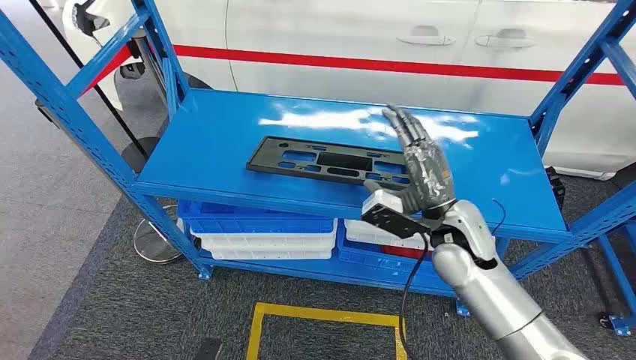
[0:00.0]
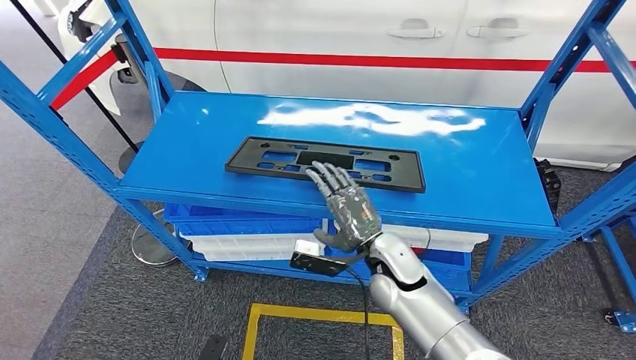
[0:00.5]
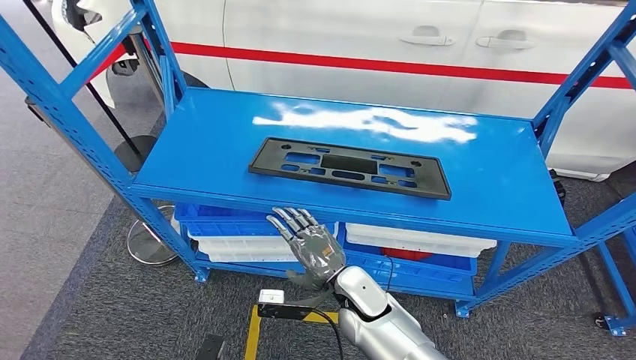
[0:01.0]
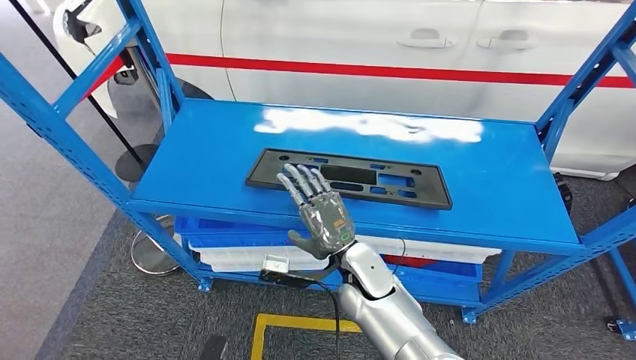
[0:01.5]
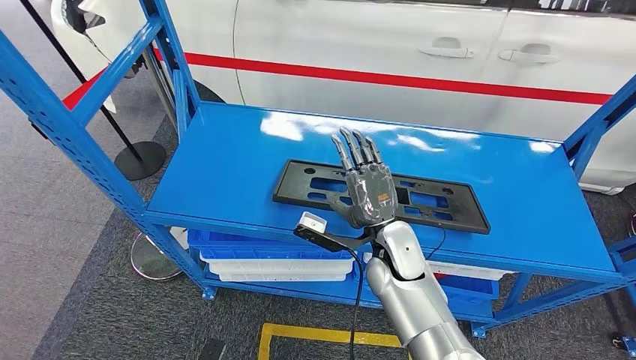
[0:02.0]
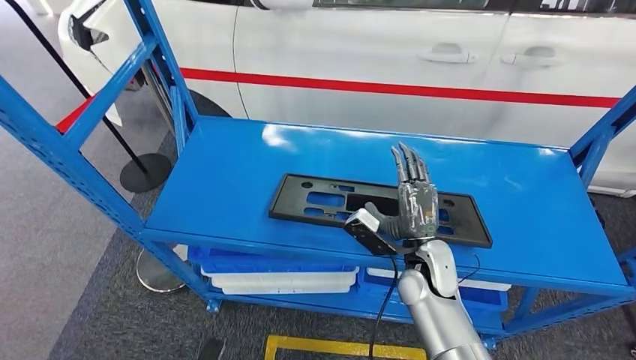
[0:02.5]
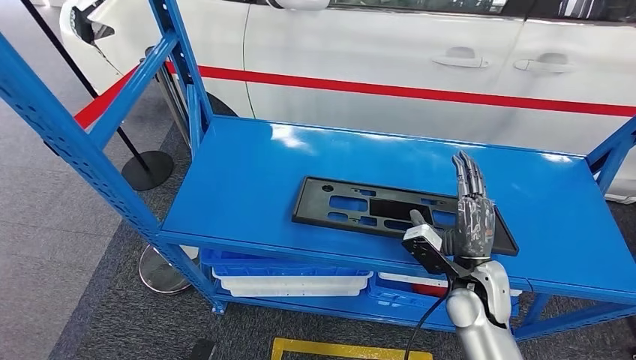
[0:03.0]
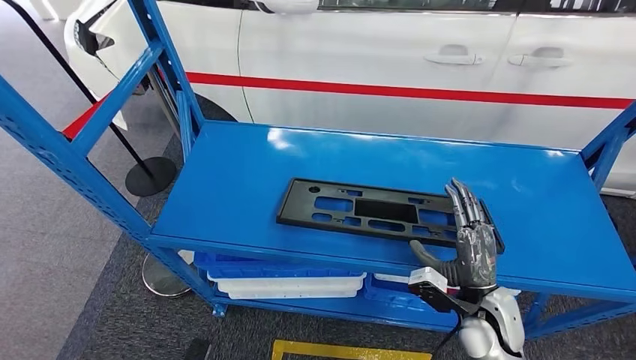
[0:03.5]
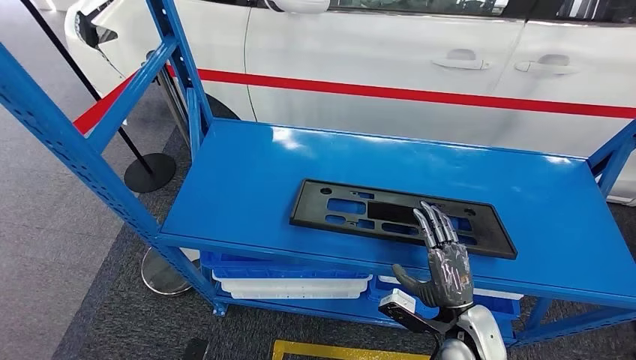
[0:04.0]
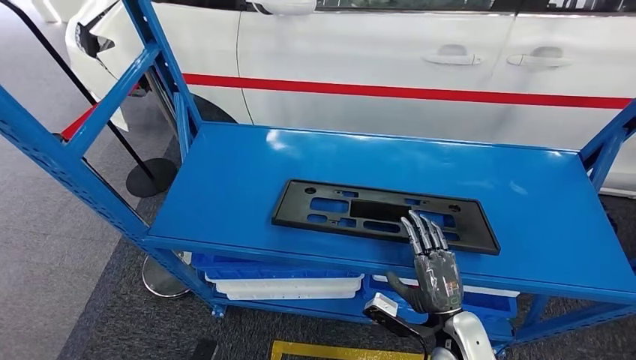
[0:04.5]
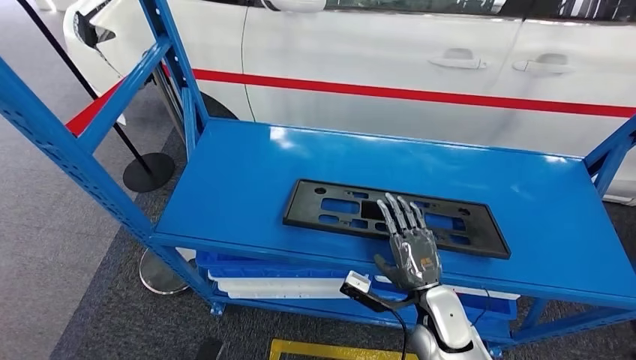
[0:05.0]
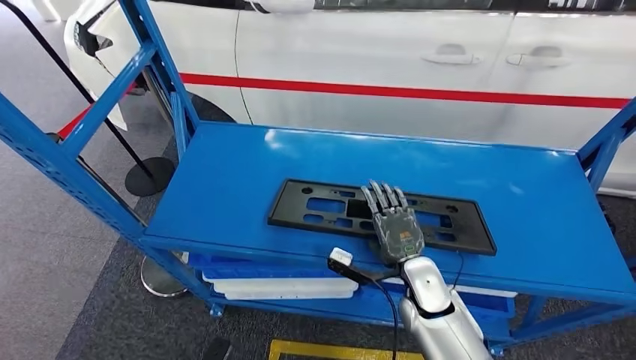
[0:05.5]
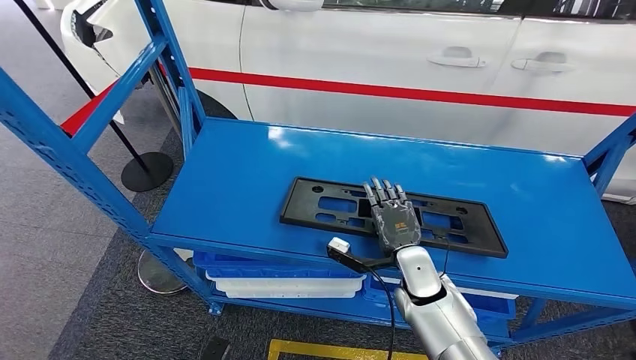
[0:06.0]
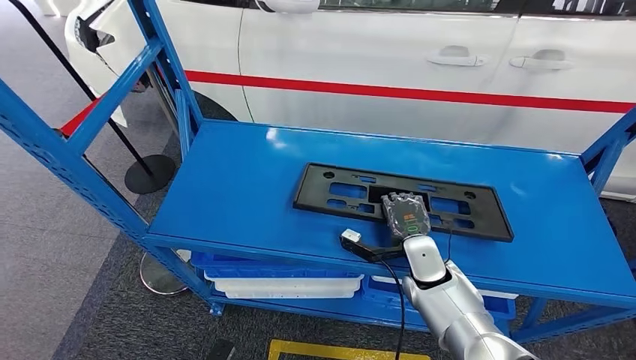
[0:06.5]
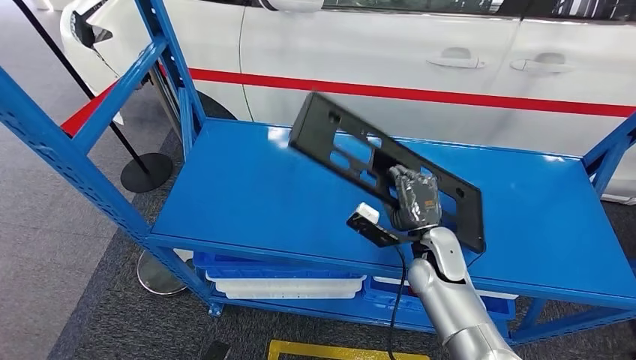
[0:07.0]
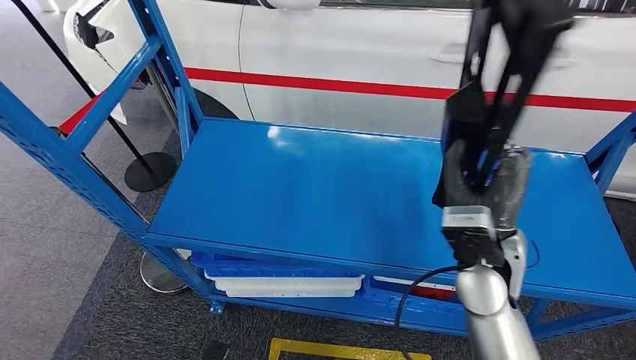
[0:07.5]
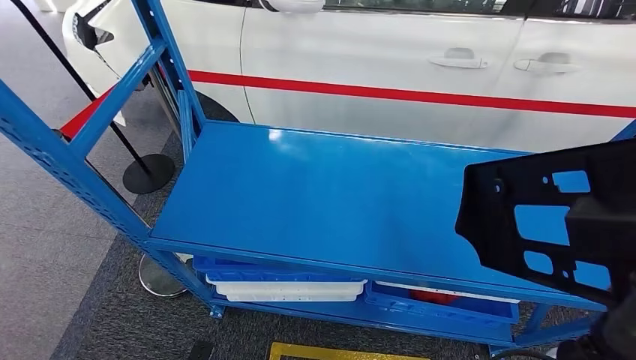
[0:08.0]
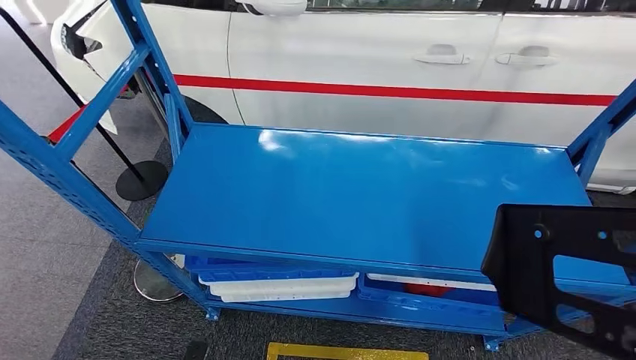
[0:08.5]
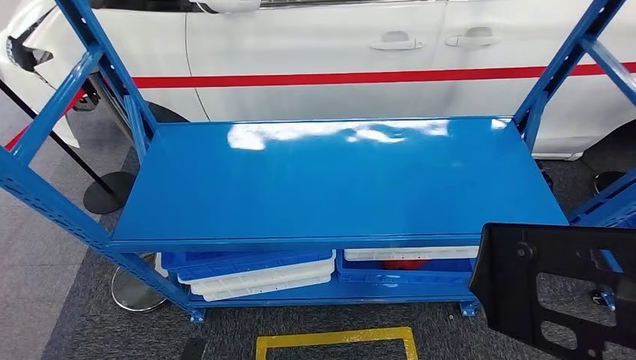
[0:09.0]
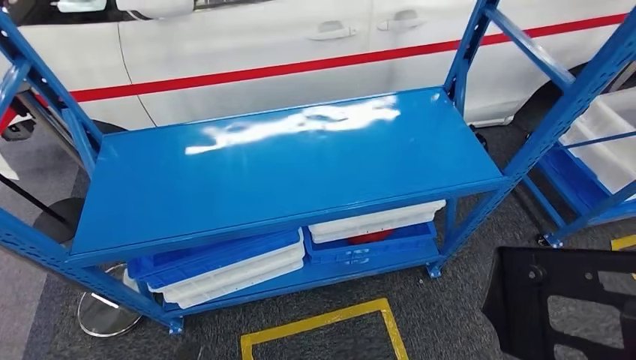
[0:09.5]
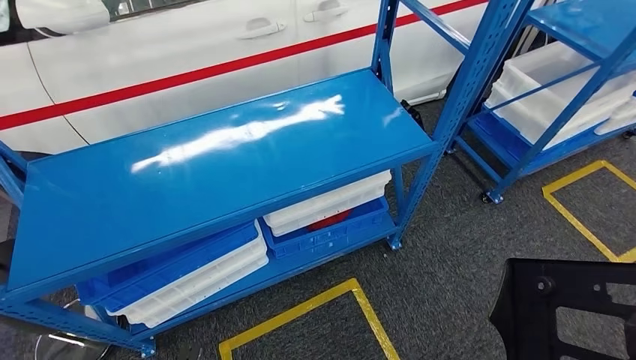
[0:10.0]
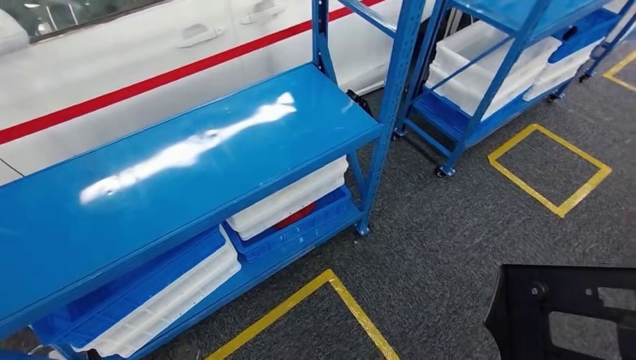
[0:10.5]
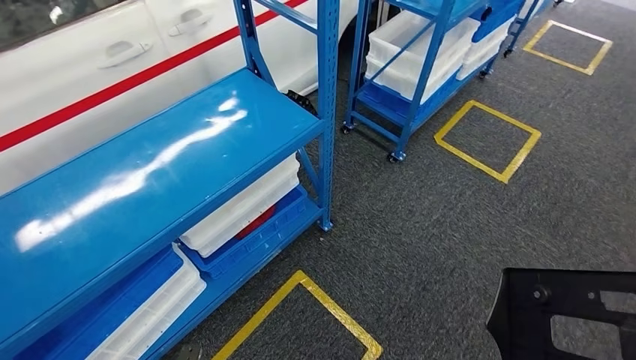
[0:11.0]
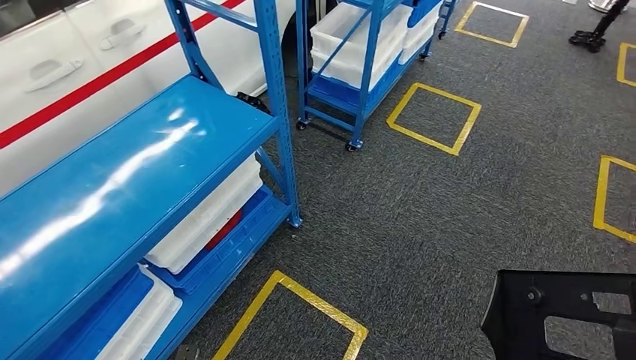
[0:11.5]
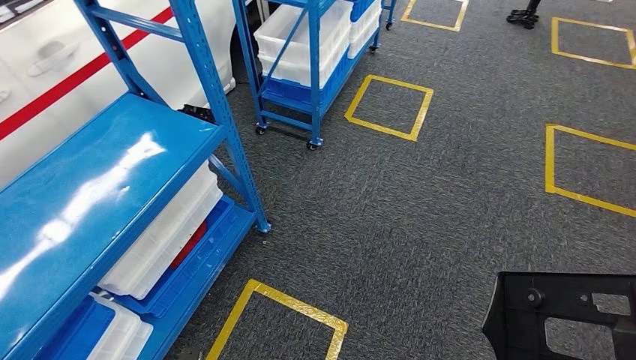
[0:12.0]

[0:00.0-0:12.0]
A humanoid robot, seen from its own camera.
Step, 0:00.0 to 0:08.0: Pick up the large material from the shelf.
0:04.0 to 0:06.0: The right hand shifts roughly 15 cm to the left and forward.

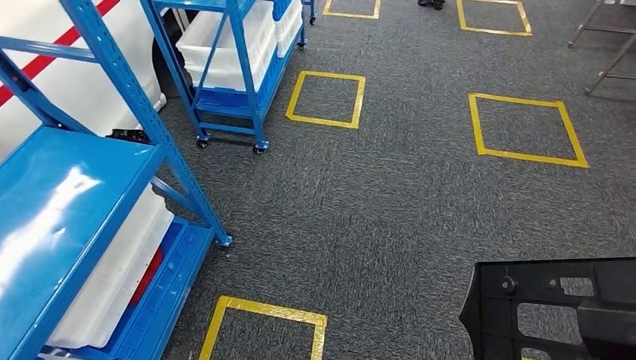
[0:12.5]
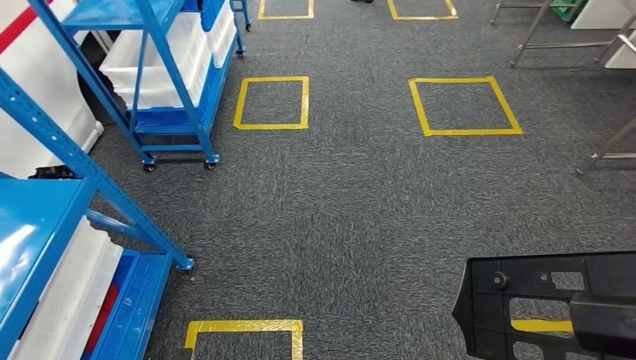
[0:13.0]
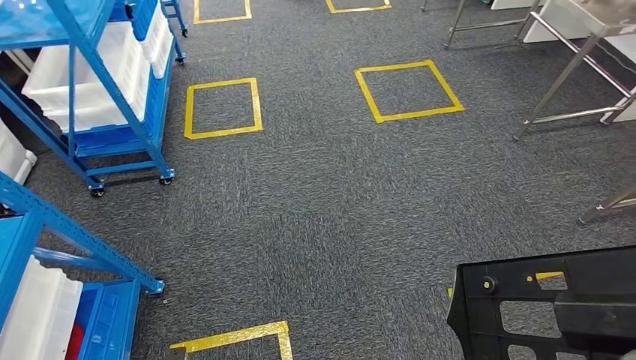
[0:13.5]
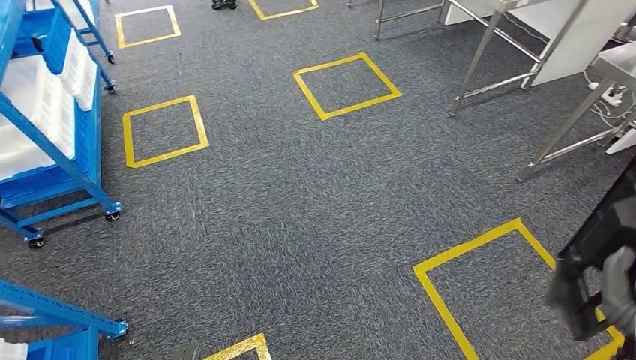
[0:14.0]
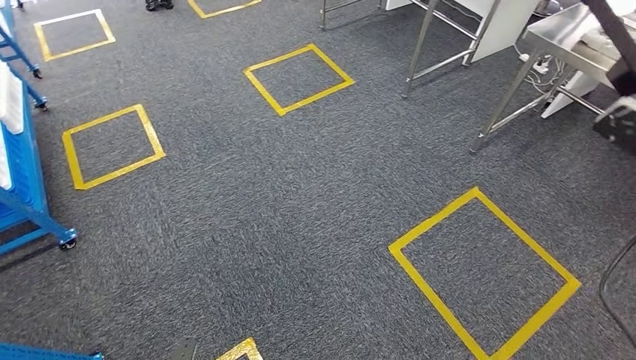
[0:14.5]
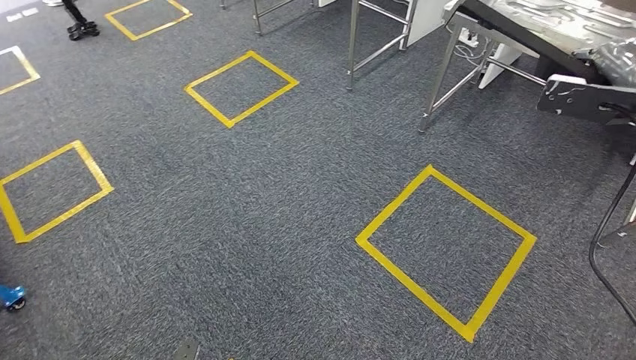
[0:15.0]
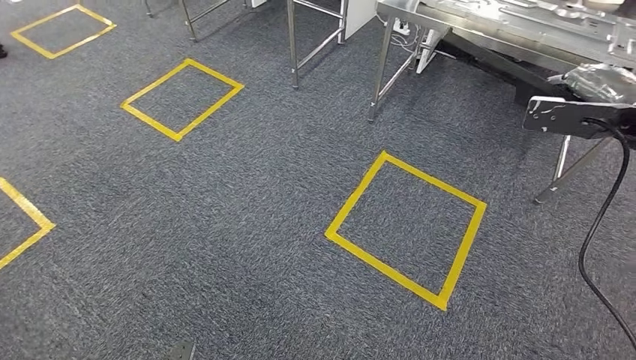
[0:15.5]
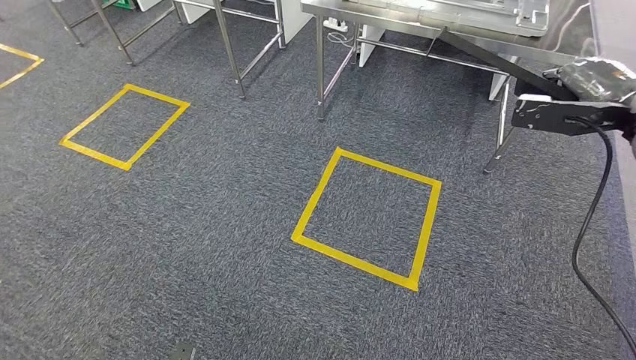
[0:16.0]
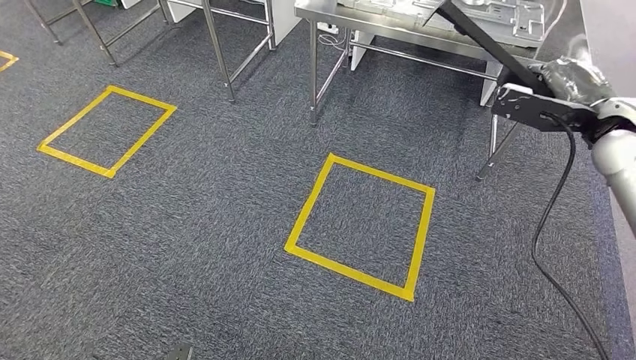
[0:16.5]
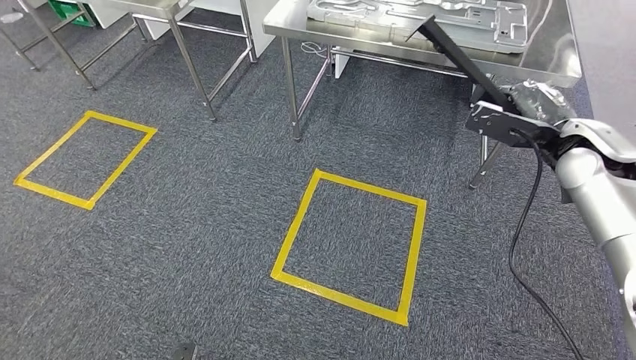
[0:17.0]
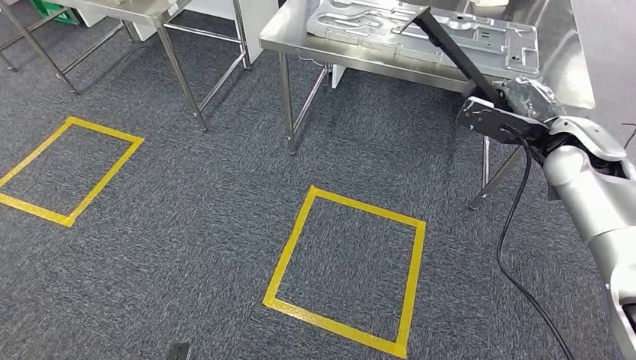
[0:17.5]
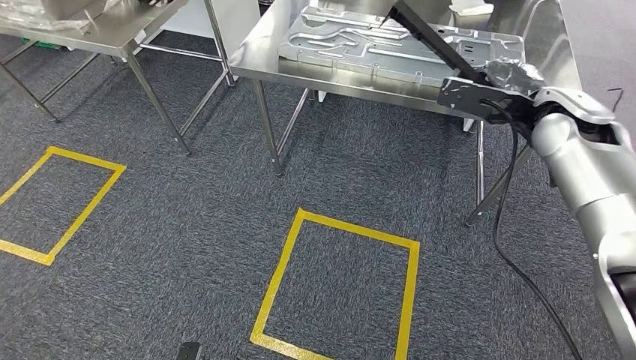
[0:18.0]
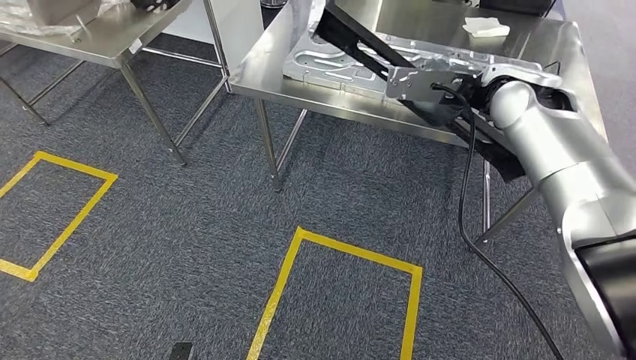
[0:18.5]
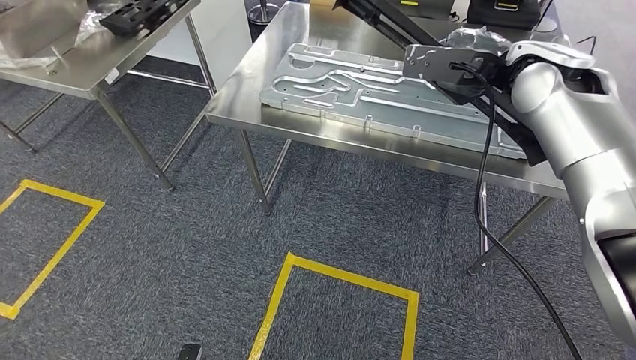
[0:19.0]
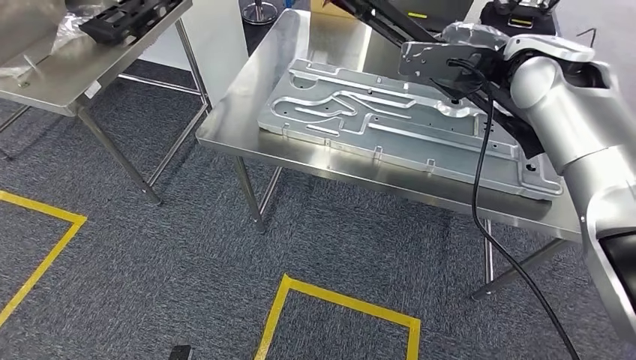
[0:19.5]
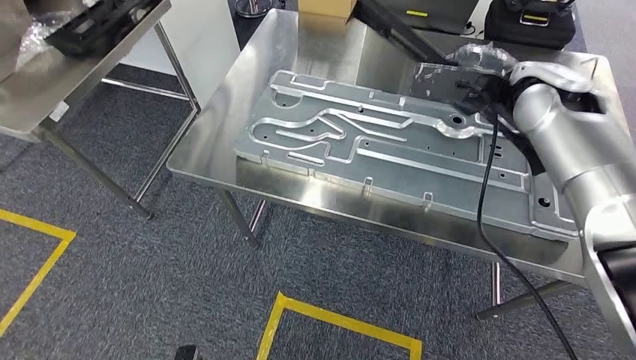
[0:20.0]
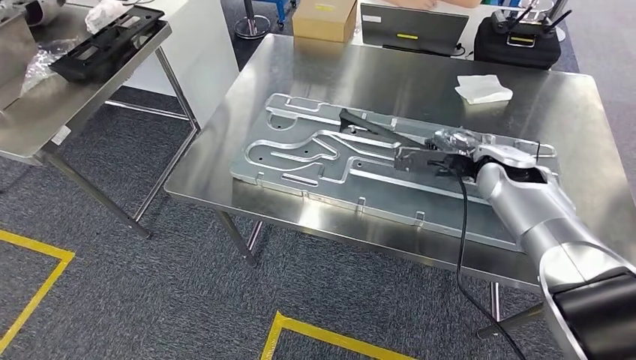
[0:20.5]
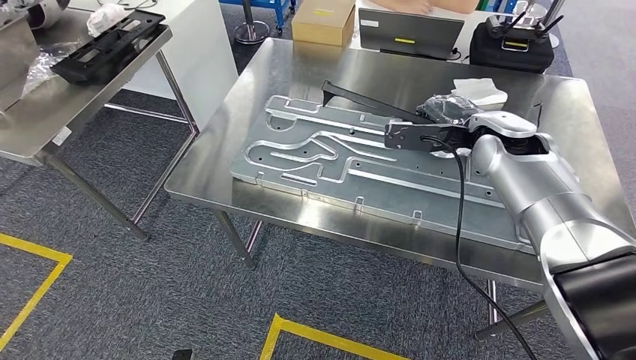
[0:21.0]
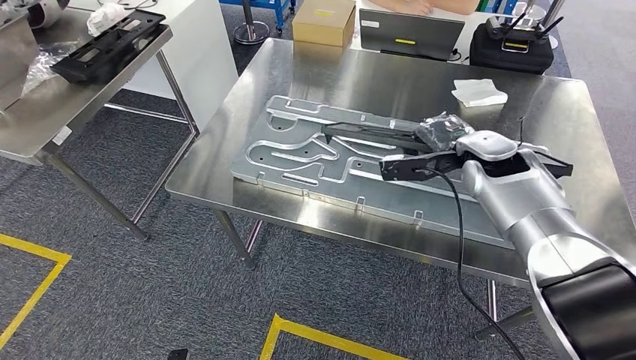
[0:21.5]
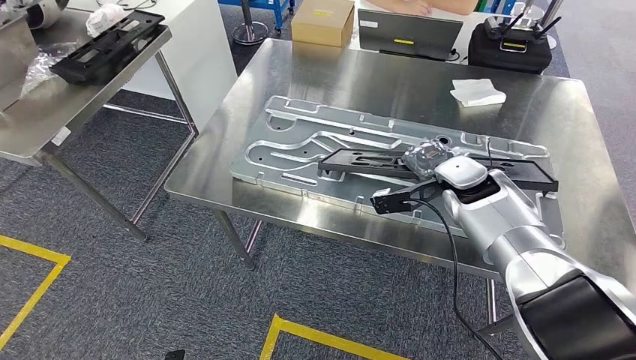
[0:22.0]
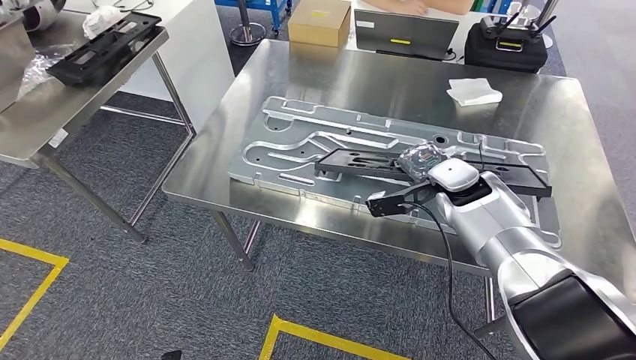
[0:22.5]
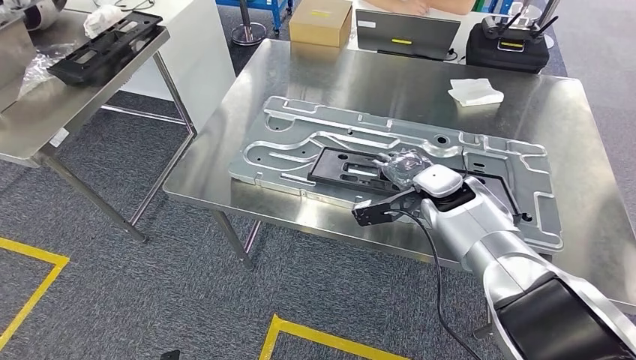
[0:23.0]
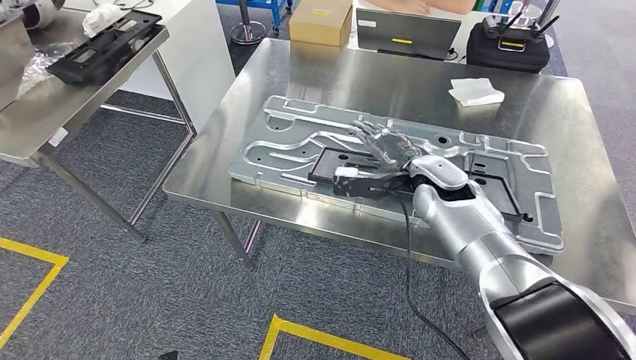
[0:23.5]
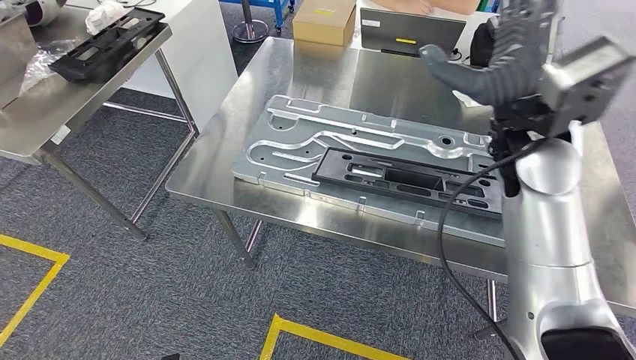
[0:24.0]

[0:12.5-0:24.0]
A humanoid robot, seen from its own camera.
Step, 0:13.0 to 0:19.5: Move the large material to the workbench.
